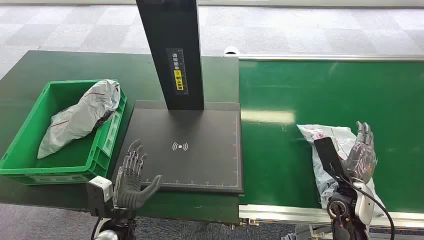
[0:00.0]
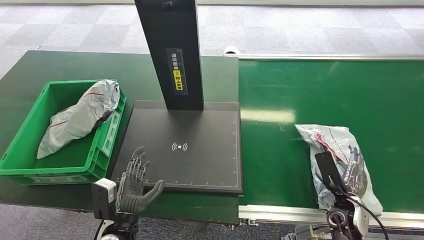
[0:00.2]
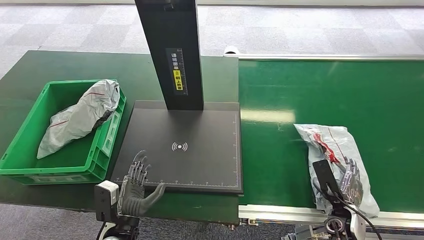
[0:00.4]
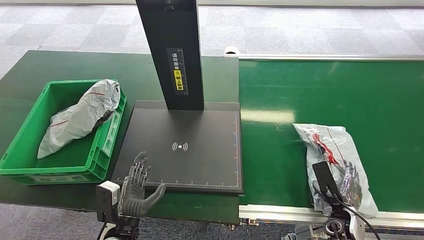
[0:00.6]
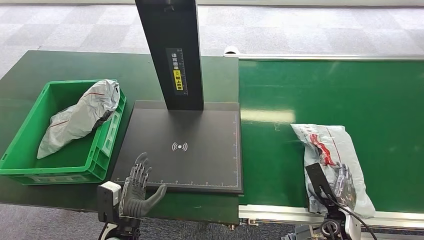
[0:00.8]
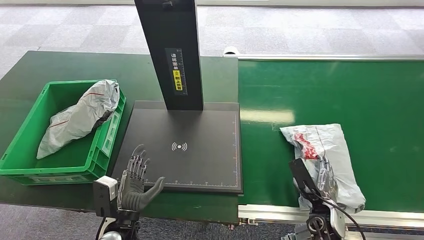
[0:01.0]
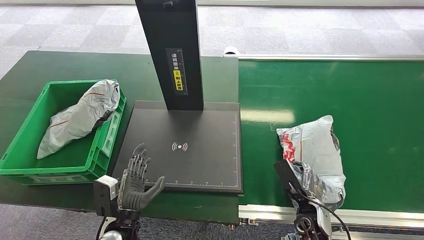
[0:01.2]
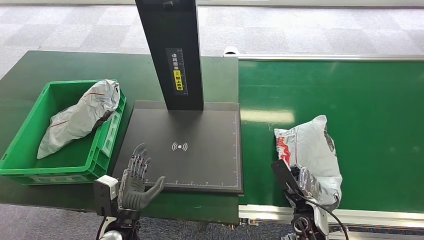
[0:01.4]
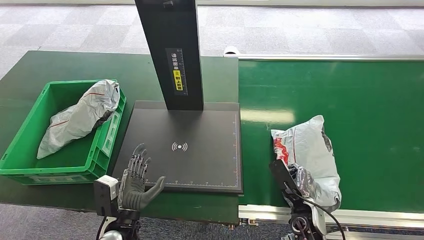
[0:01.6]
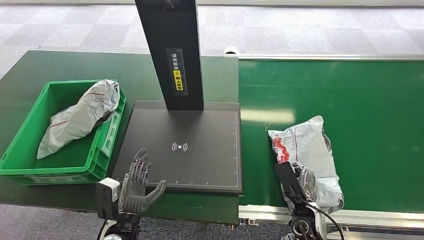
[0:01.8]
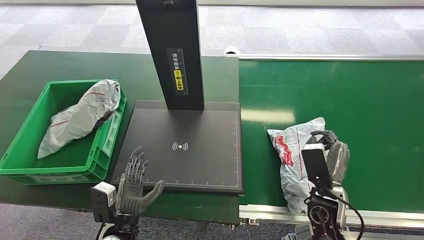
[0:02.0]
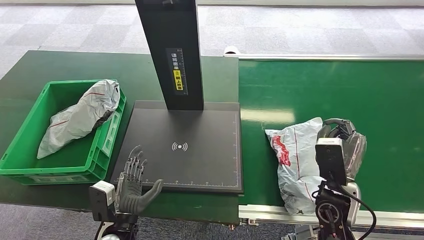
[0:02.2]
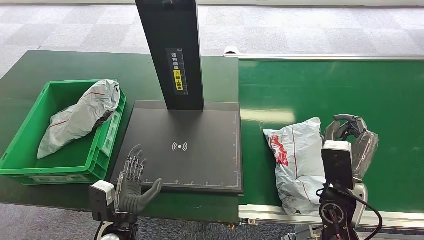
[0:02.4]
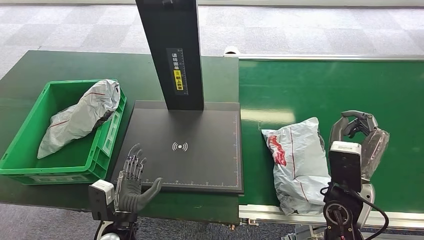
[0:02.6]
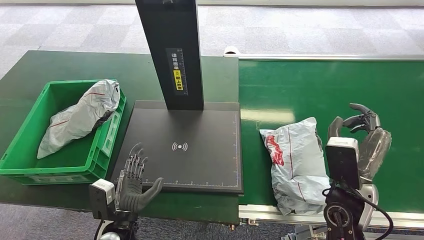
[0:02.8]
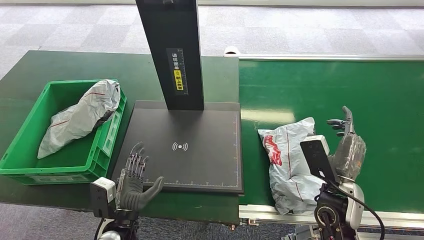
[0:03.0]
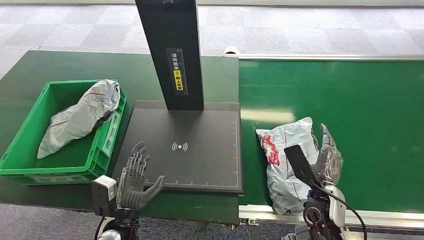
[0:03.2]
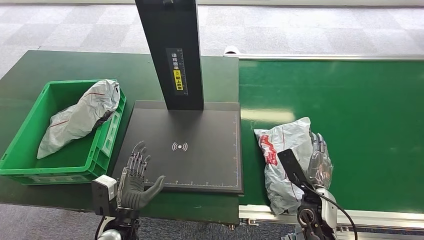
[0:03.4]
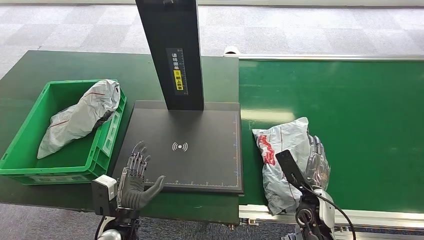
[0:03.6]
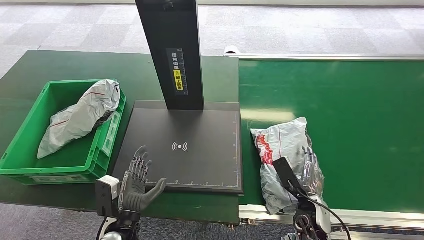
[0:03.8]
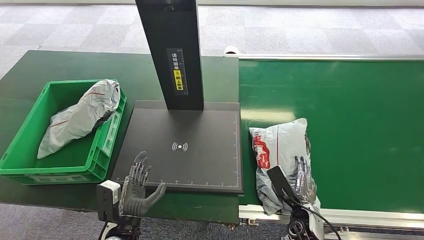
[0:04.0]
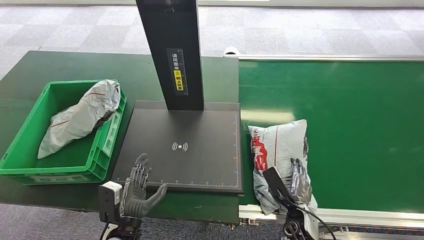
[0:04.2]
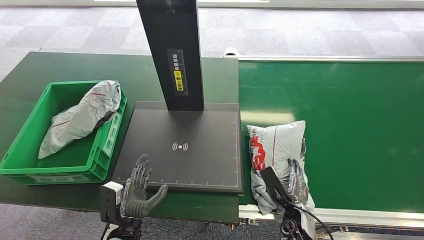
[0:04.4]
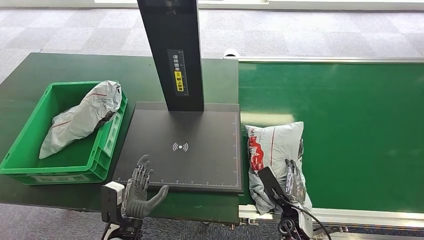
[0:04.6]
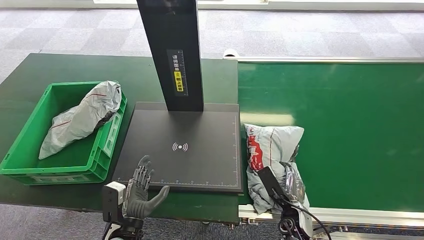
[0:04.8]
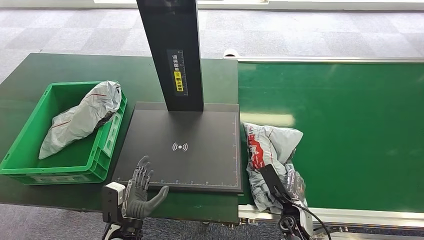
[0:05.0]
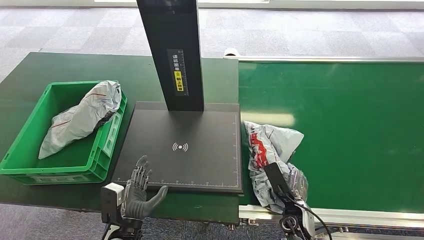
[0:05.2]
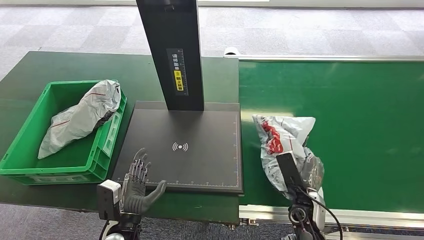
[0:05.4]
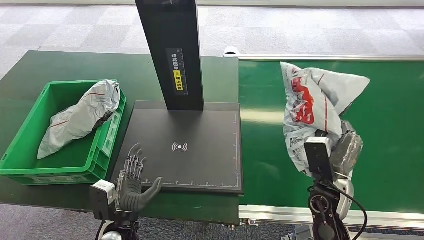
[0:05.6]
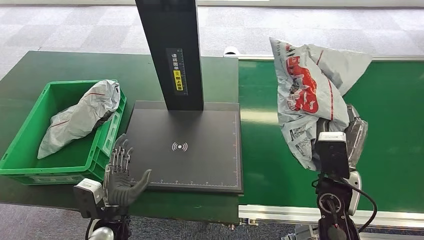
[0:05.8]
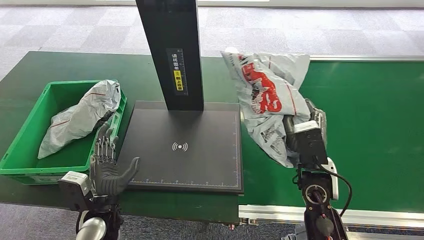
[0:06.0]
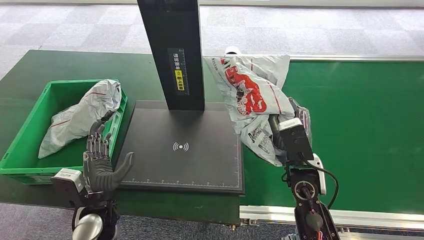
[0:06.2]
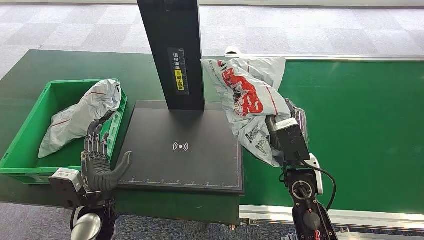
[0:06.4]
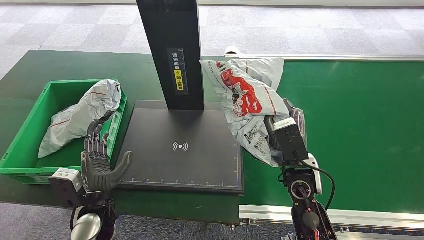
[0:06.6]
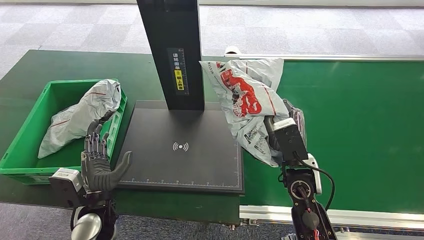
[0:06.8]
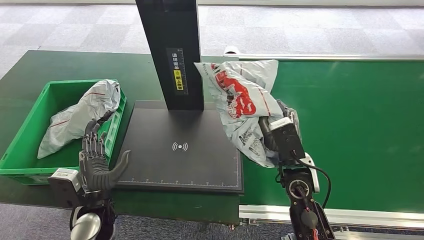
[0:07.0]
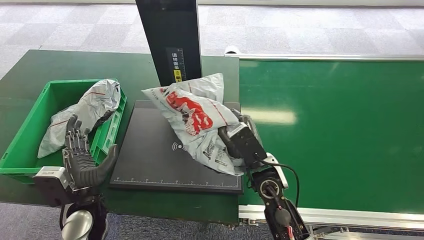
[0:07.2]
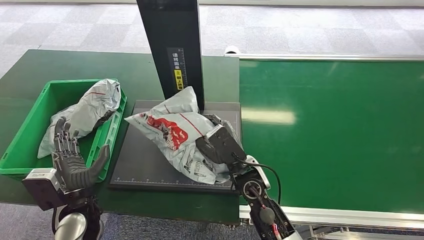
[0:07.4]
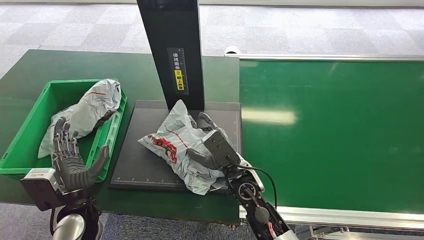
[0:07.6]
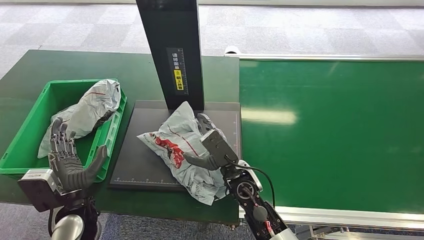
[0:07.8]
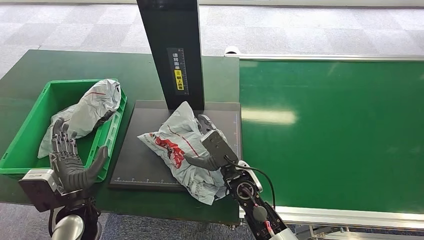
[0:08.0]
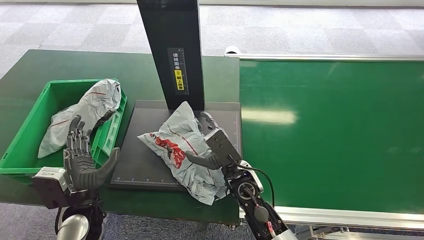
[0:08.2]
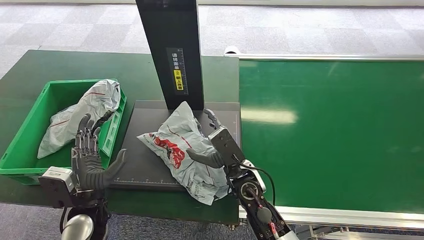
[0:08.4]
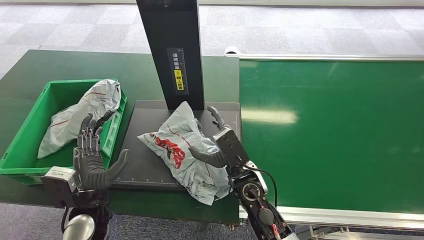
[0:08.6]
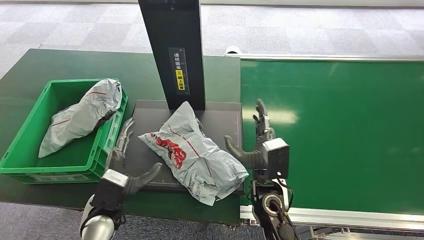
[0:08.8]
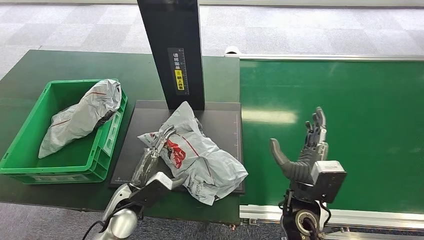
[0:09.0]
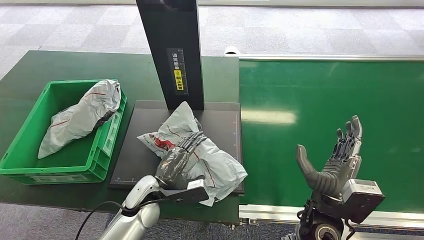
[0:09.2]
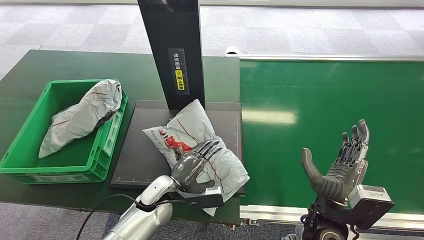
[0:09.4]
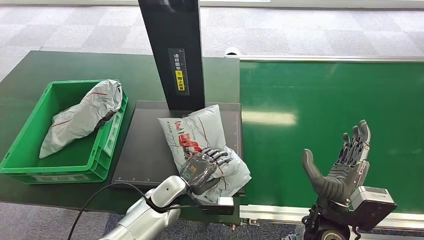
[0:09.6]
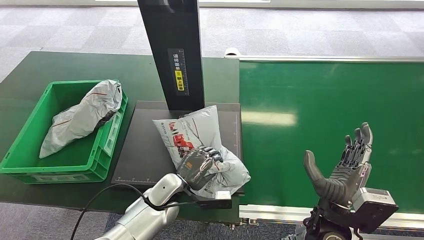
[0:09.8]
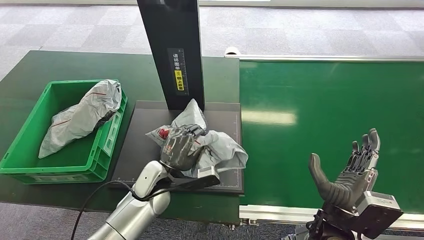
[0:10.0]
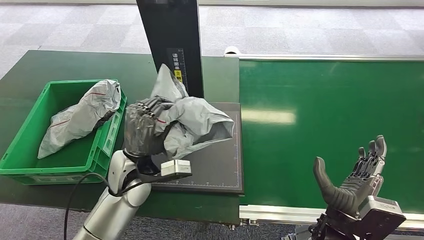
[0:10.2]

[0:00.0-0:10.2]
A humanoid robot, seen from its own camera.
Task of the whole recording: Weigh the package on the weighing device and place it in the left basket.
Step, 0:00.0 to 0:06.0: Pick up the package from the conveyor belt.
Step, 0:06.4 to 0:08.6: Place the package onto the inbound machine.
0:01.4 to 0:03.0: The right hand shifts roughly 15 cm upward.
0:03.0 to 0:04.4: The right hand is displaced downward by about 15 cm.

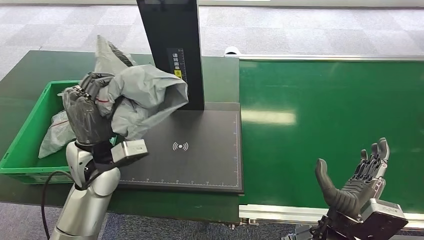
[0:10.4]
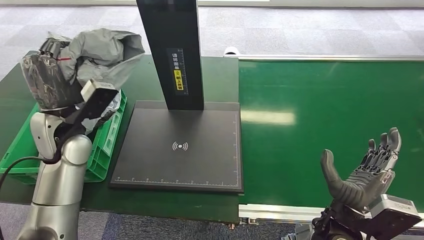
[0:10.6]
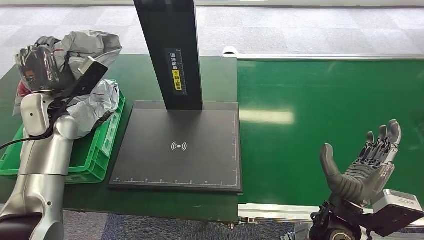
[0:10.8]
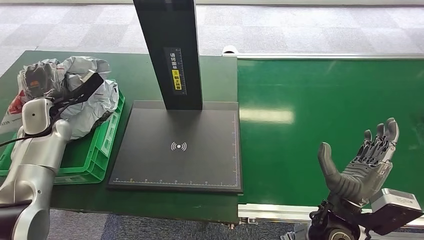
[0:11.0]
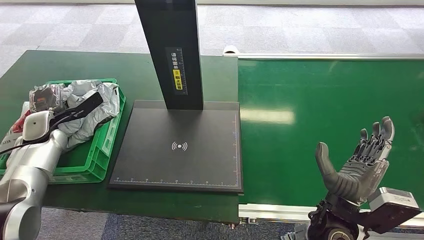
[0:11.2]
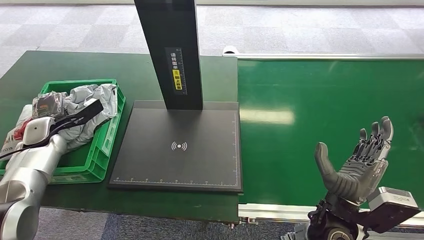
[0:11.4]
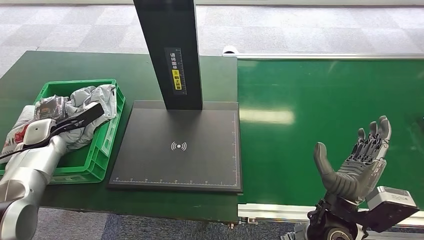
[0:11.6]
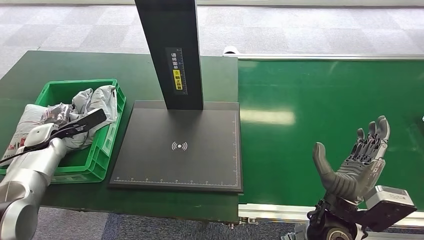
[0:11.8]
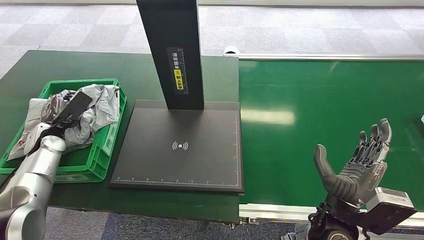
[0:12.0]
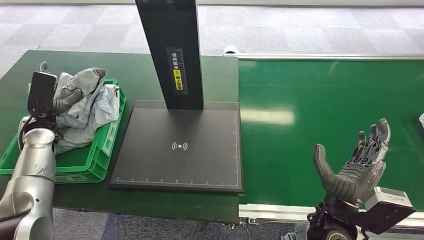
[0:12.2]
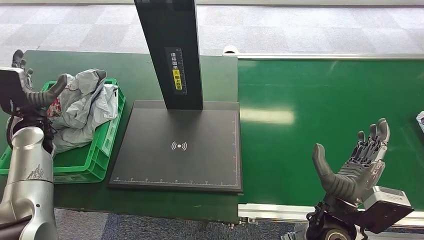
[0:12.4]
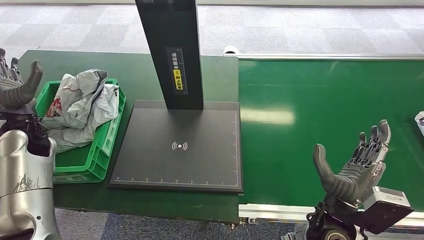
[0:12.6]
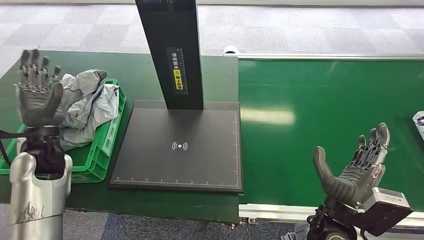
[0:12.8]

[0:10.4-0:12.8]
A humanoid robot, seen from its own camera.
Task of the whole recording: Weigh the package on the weighing device and place it in the left basket.
Step, 0:11.2 to 0:12.6: Place the package into the parcel locker.
0:11.6 to 0:12.8: The left hand heads to the right, backward and upward, covering approximately 15 cm.
